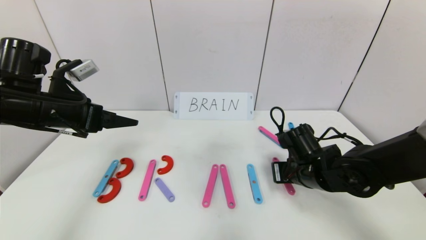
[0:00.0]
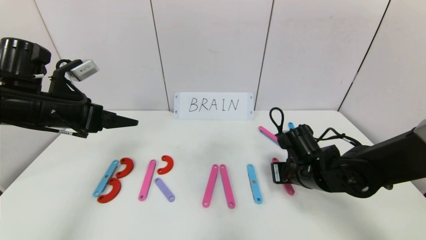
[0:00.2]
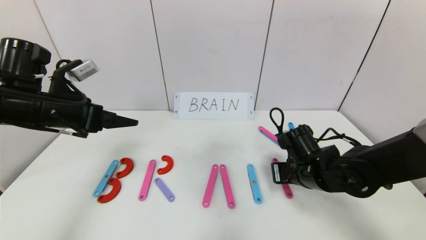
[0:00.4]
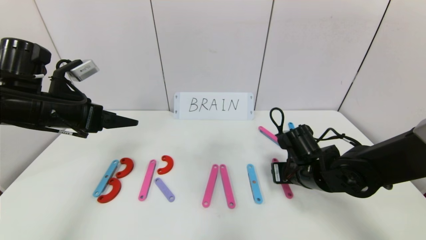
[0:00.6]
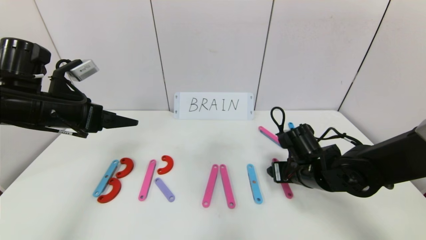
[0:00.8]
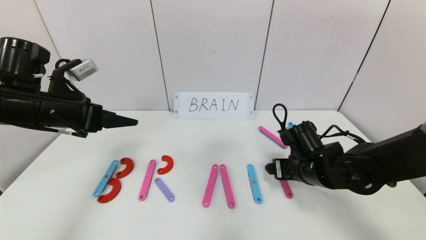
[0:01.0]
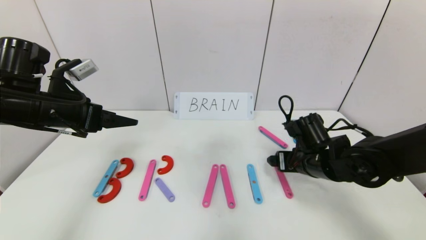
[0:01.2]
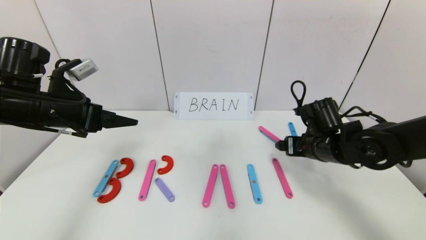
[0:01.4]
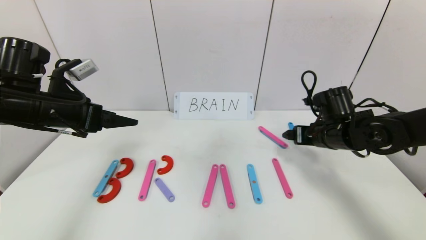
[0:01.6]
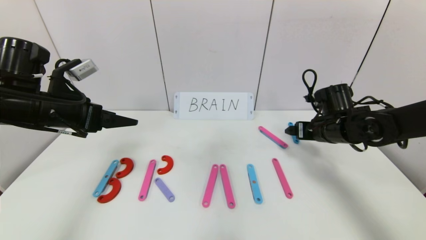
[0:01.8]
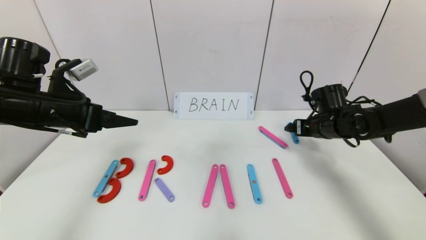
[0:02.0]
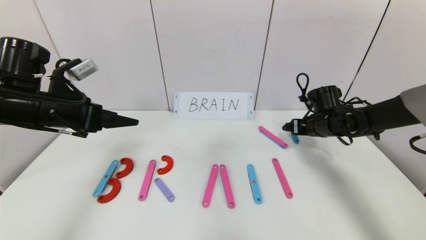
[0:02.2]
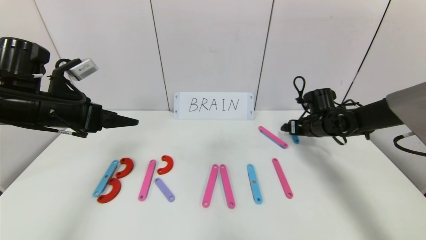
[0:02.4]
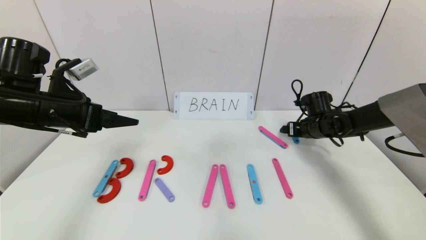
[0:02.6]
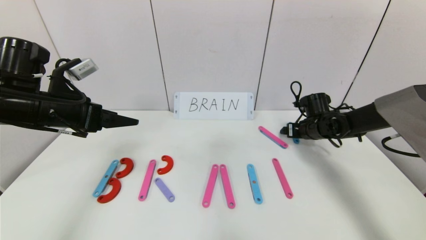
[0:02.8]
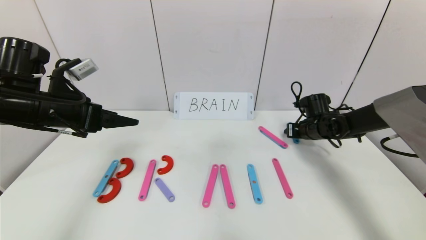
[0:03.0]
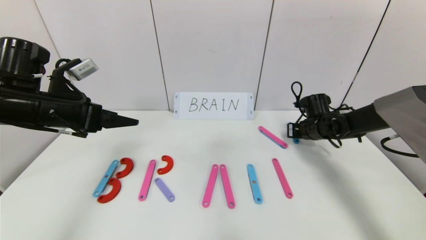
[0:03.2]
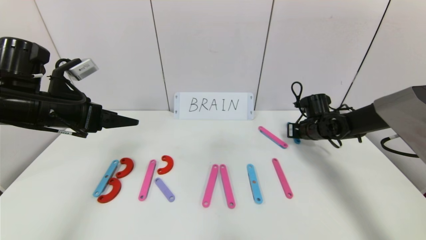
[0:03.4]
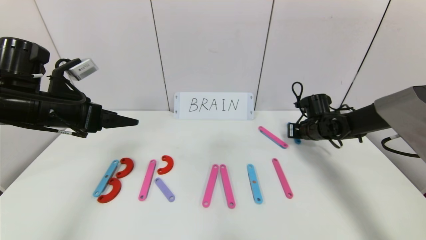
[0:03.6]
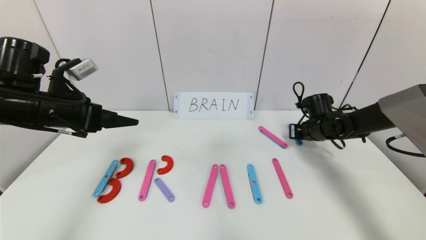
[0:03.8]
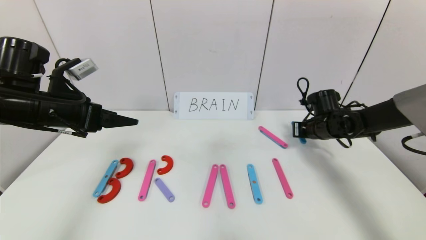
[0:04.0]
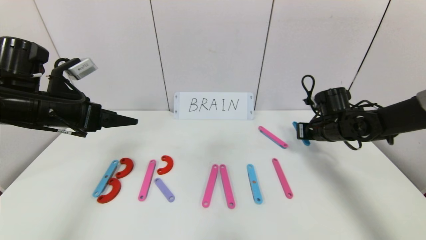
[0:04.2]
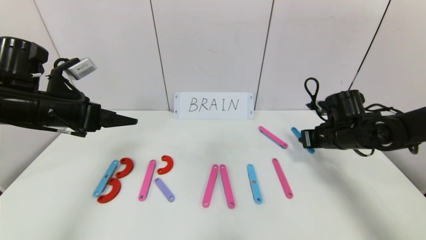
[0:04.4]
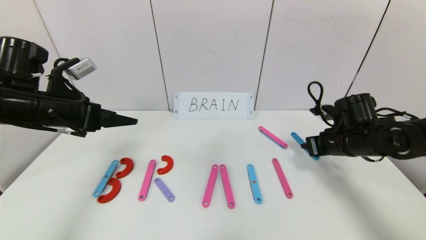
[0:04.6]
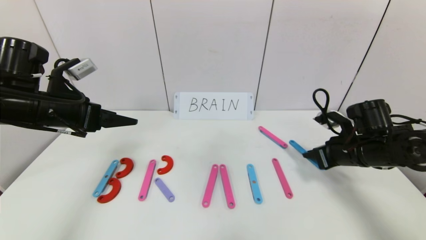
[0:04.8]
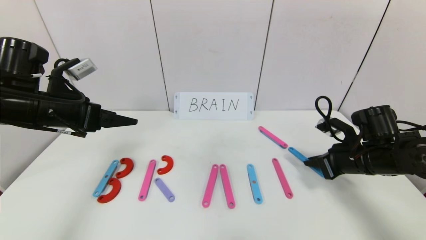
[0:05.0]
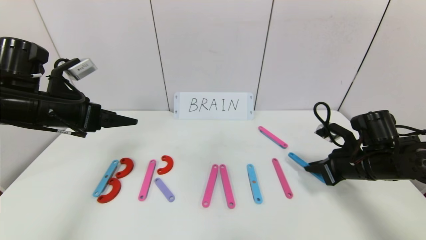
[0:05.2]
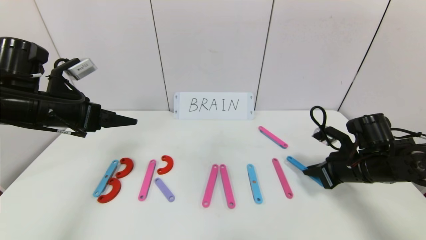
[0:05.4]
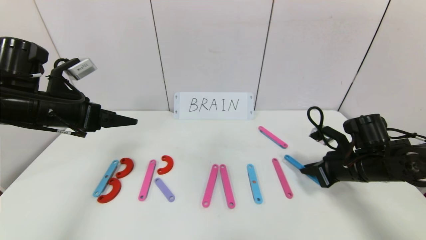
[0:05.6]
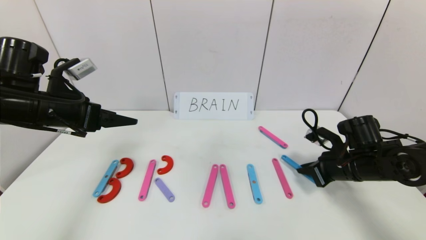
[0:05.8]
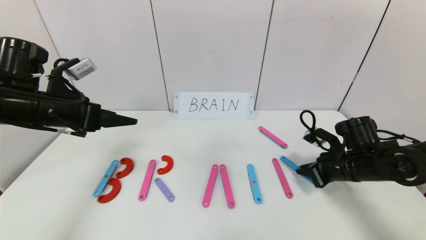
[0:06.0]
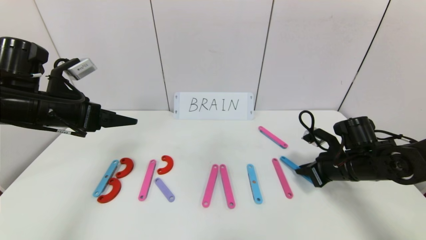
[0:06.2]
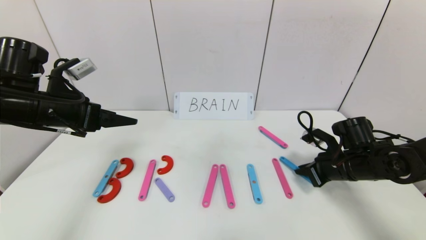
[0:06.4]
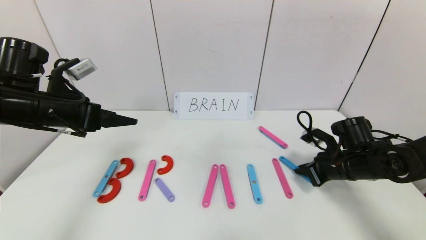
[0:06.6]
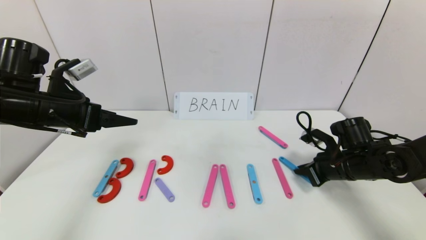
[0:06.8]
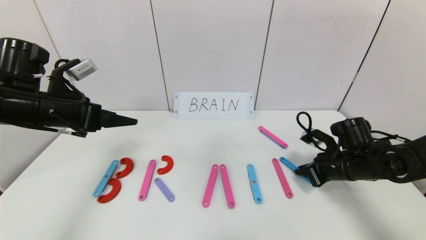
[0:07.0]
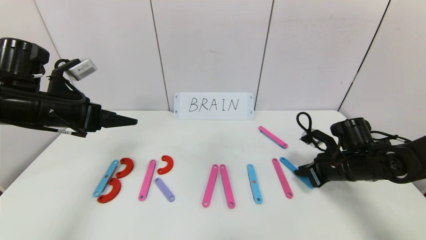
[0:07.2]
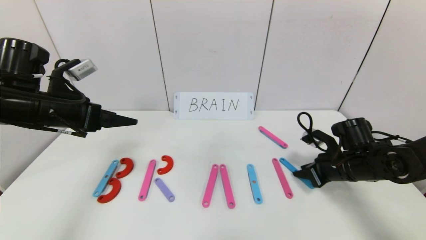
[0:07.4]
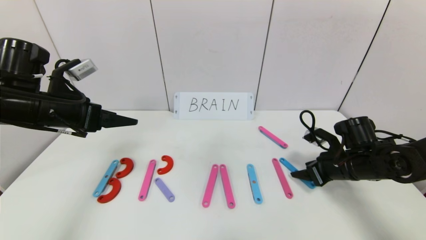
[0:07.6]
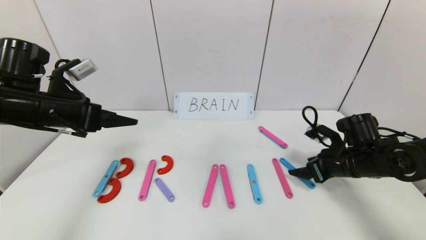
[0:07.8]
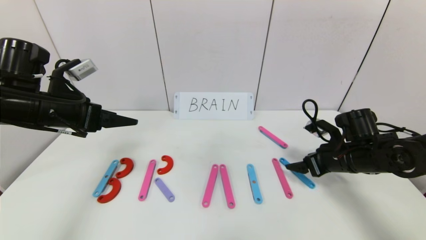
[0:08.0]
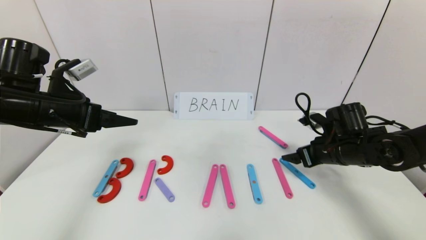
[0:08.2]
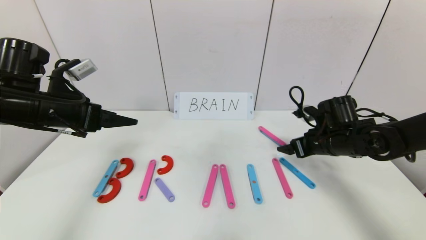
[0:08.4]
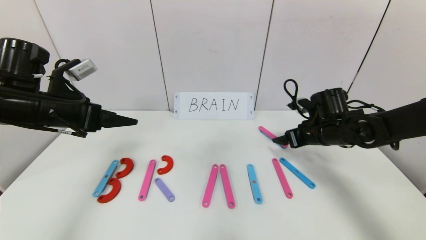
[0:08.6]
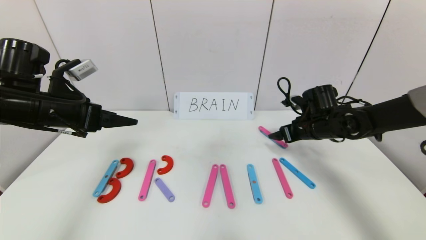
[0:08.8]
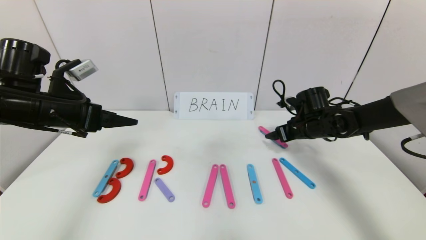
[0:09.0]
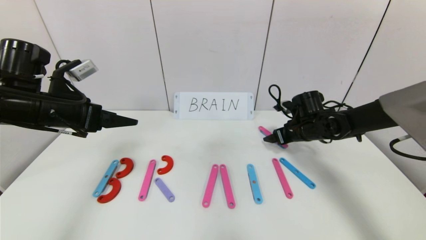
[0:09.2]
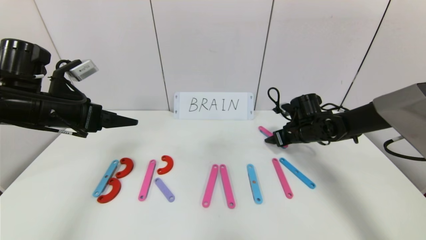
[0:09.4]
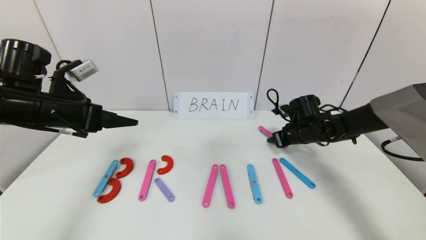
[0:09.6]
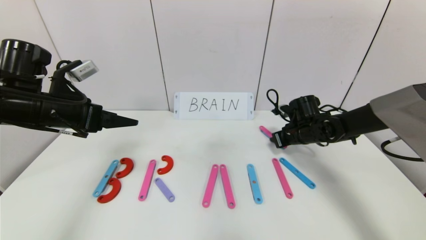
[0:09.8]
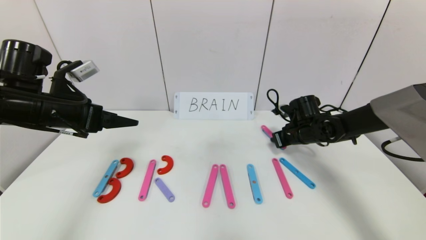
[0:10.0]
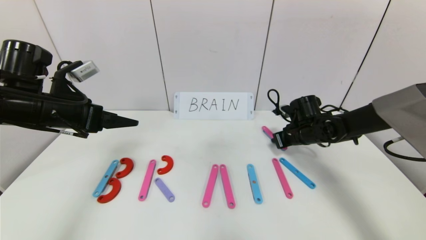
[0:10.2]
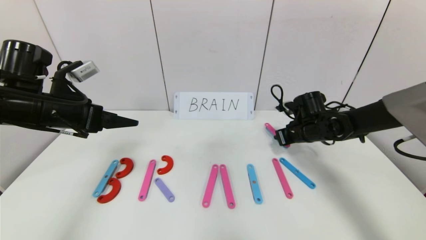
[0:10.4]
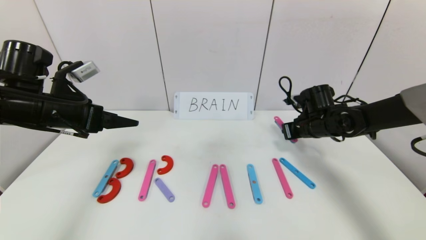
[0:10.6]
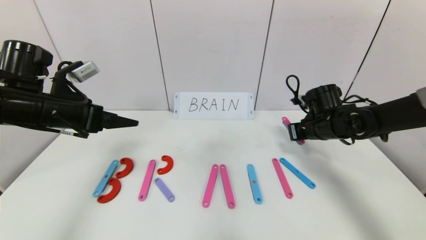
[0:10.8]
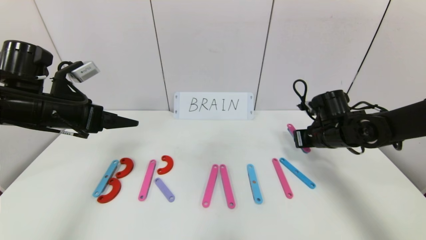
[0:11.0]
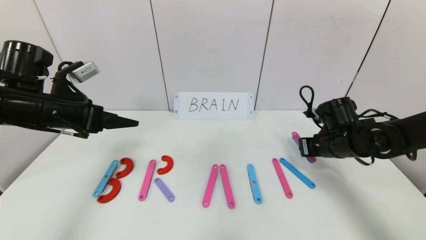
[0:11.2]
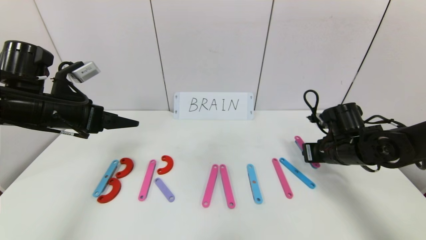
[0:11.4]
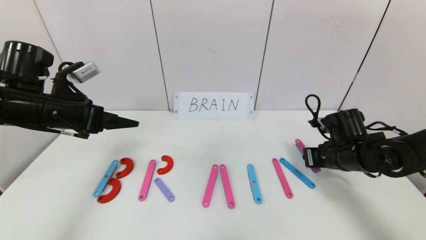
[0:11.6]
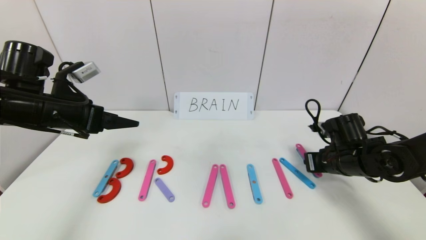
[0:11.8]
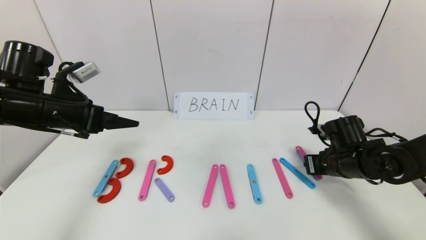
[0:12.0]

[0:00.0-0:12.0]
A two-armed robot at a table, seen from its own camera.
Task of the whole recording: rearrange the word baai as brain.
0.0 to 1.6 s: The right gripper goes some 10 cm to the right, upward and forward, and opens.
1.6 to 3.0 s: The right gripper moves forward and downward, about 15 cm, and closes.
3.0 to 4.4 s: The right gripper shifts approximately 10 cm backward, and closes.
4.4 to 6.0 s: The right gripper goes about 5 cm backward.
6.0 to 7.6 s: The right gripper opens up.
7.6 to 9.0 s: The right gripper moves forward, some 10 cm.
9.0 to 10.4 s: The right gripper closes its fingers.
10.4 to 12.0 s: The right gripper travels backward by roughly 10 cm.

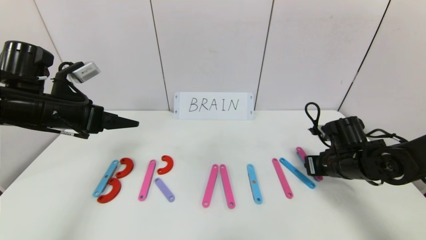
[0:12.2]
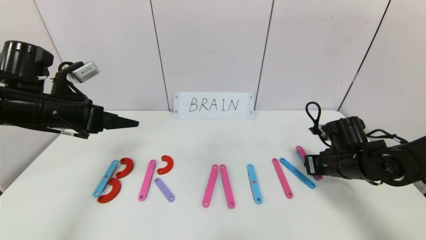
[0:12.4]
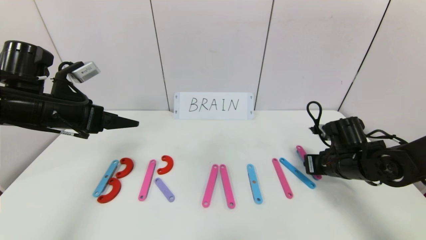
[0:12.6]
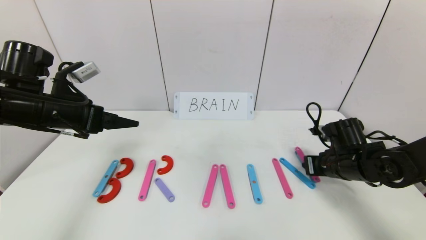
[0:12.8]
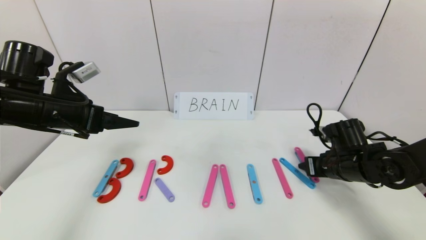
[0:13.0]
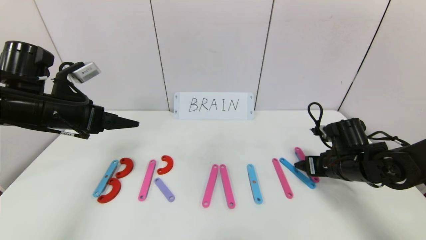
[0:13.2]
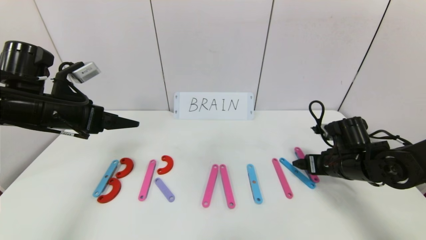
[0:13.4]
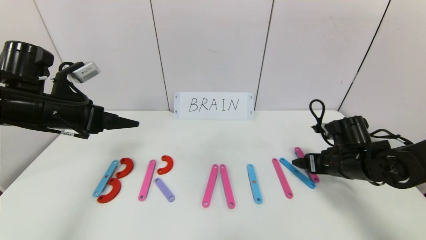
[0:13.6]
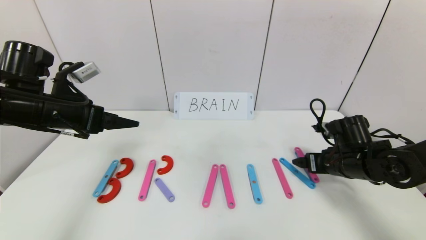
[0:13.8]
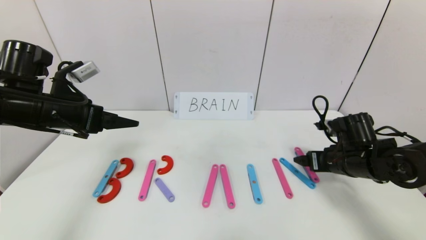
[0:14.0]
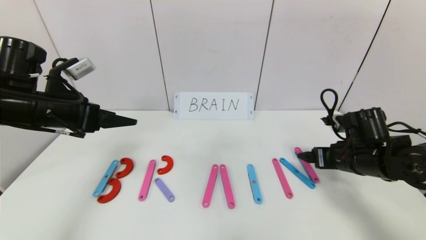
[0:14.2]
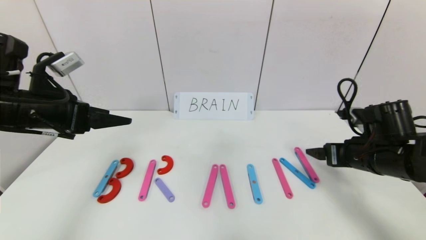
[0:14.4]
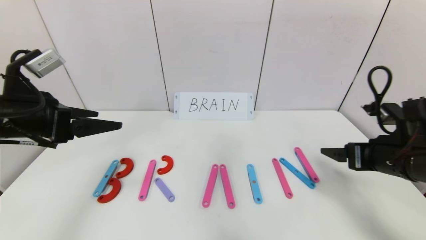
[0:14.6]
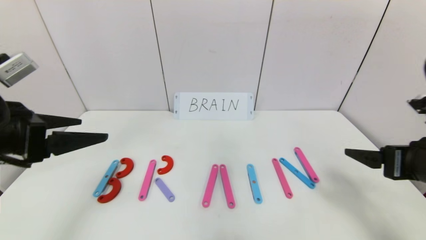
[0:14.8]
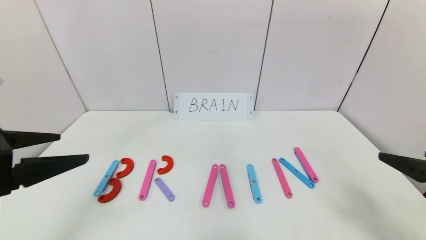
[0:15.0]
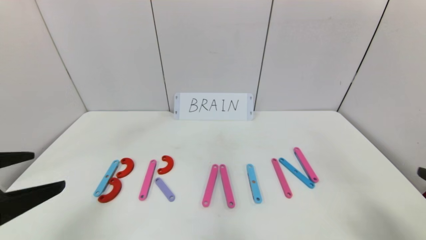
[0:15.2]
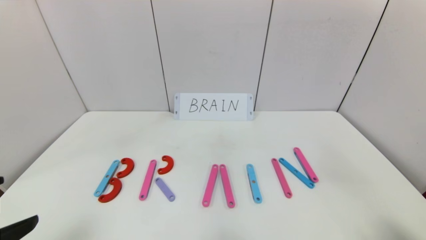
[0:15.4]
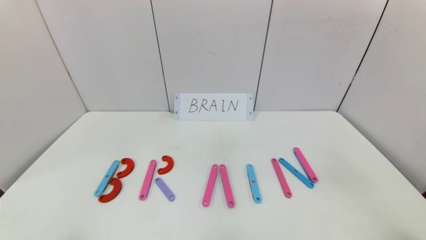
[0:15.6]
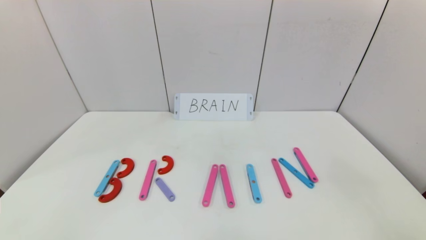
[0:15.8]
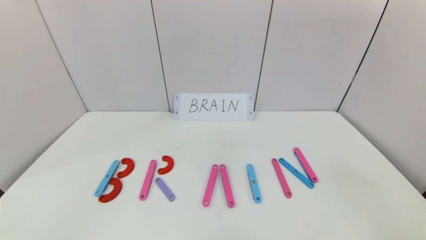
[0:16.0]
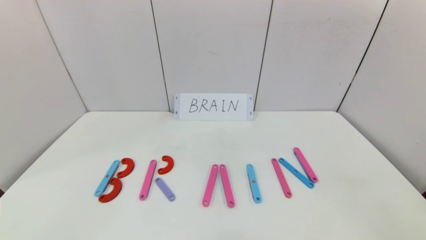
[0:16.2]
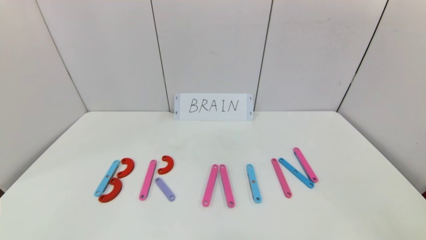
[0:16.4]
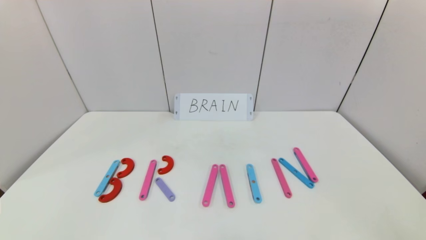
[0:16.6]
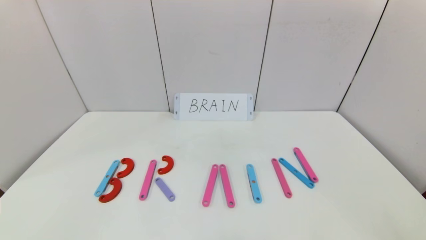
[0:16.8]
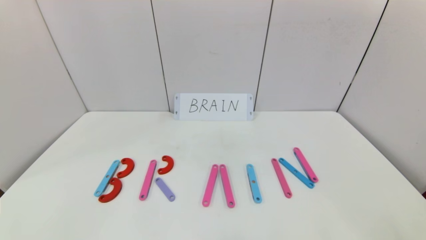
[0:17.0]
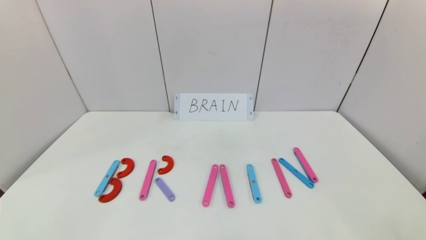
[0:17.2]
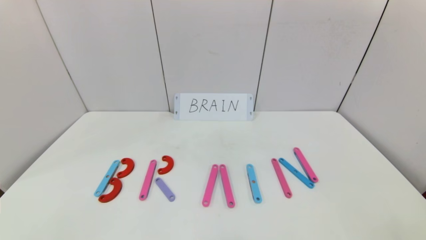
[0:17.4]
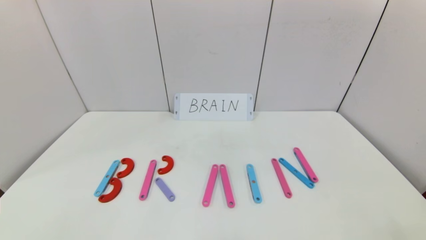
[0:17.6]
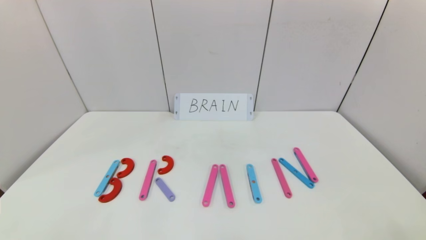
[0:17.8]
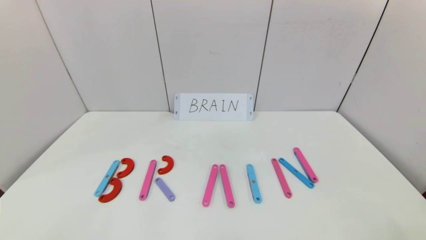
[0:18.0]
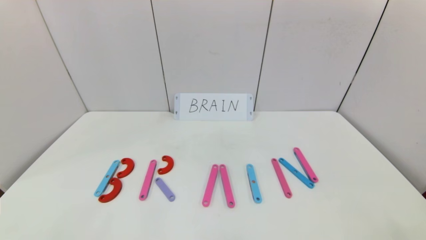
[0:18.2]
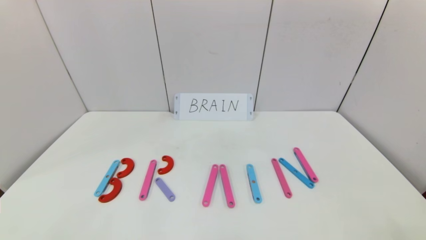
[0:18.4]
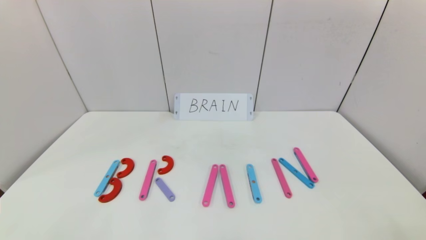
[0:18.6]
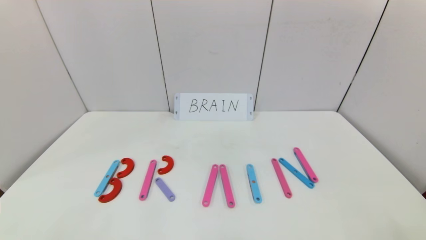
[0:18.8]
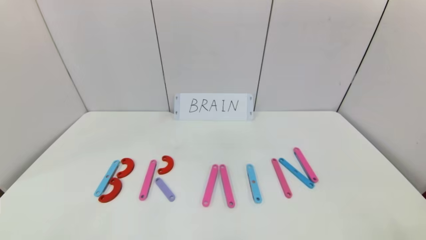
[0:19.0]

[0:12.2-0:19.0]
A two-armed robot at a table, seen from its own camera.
Task of the whole recording: rearrange the word baai as brain.
12.2 to 13.6 s: The right gripper opens up.
13.6 to 15.0 s: The right gripper moves backward and upward, approximately 25 cm, while the left gripper goes some 15 cm backward.
15.0 to 16.2 s: The grippers both shift backward by about 20 cm.
